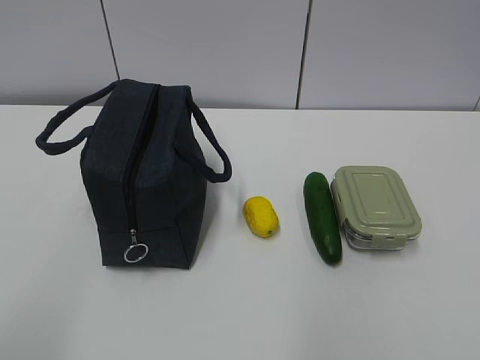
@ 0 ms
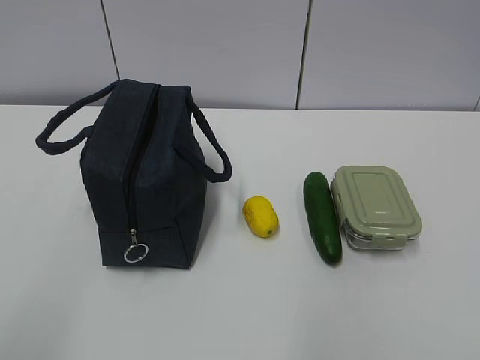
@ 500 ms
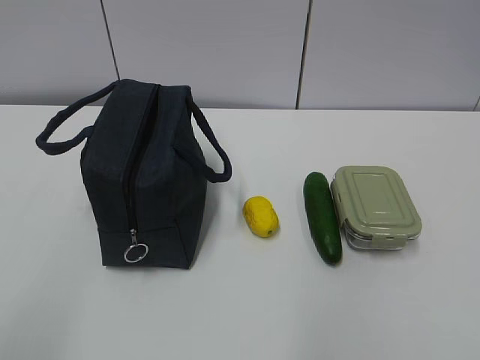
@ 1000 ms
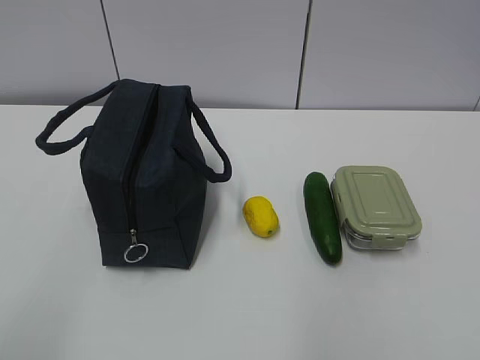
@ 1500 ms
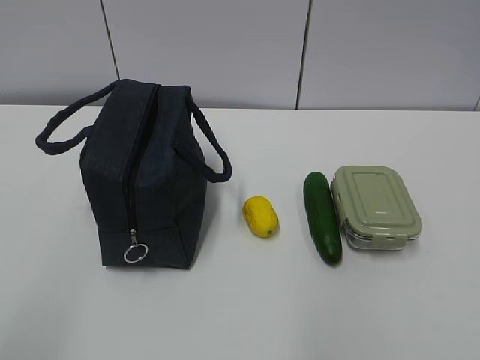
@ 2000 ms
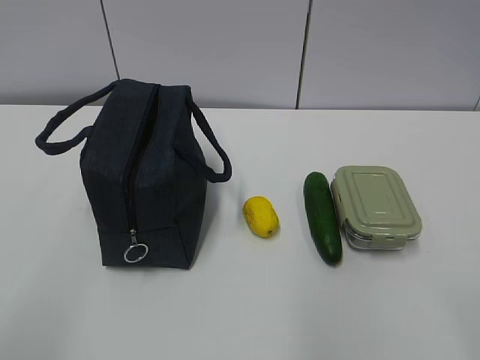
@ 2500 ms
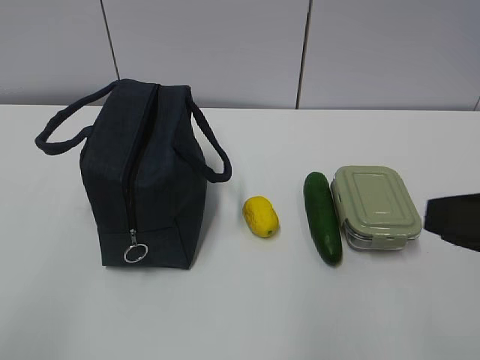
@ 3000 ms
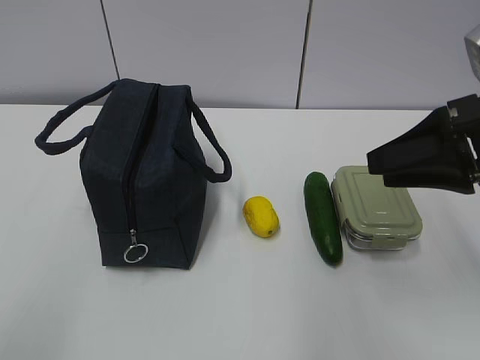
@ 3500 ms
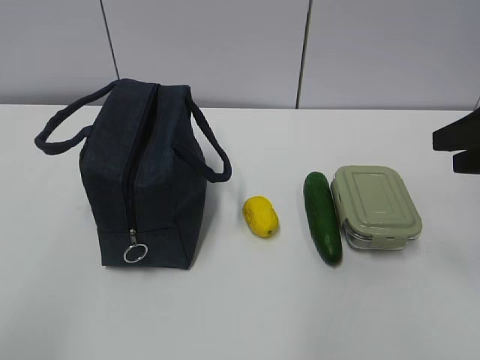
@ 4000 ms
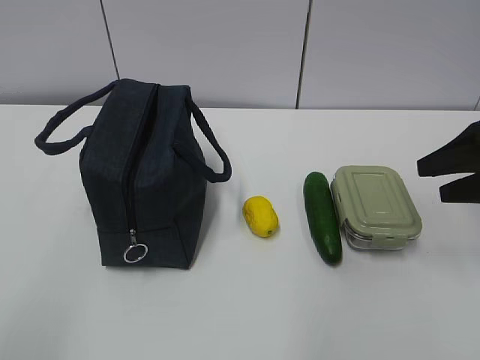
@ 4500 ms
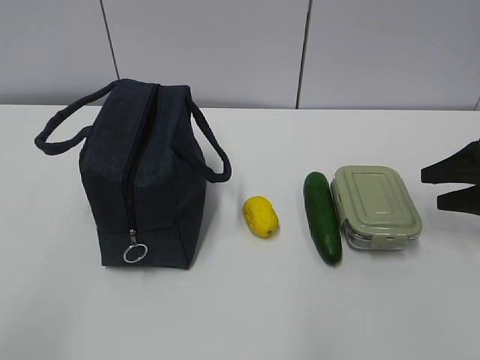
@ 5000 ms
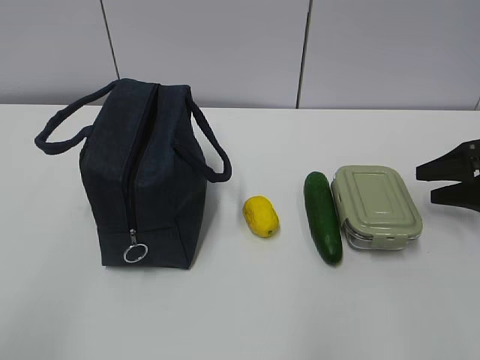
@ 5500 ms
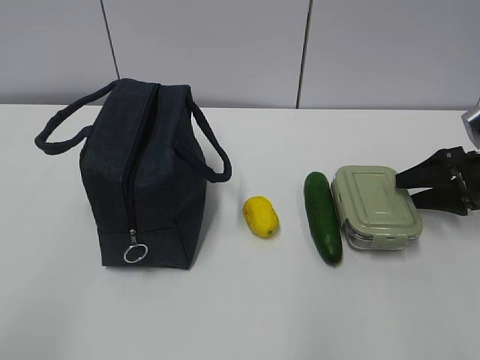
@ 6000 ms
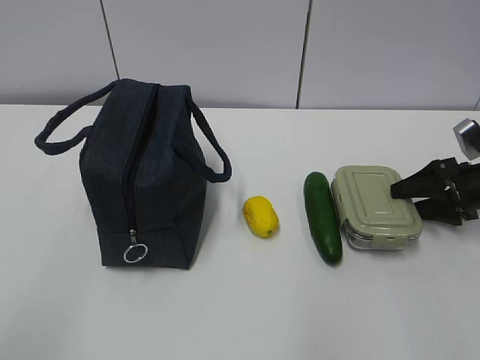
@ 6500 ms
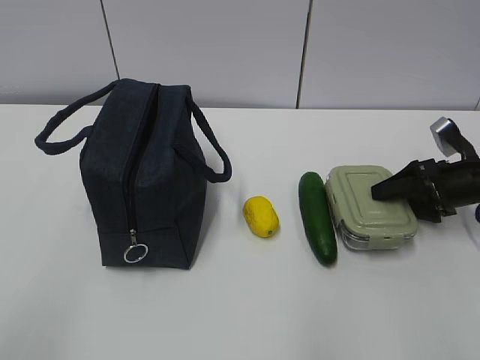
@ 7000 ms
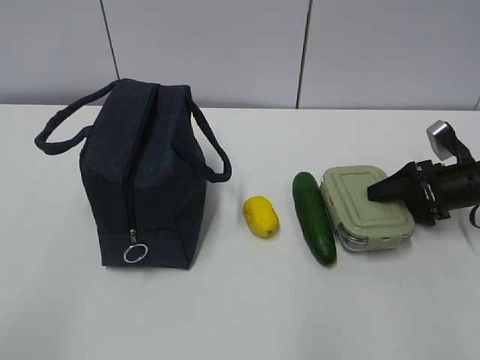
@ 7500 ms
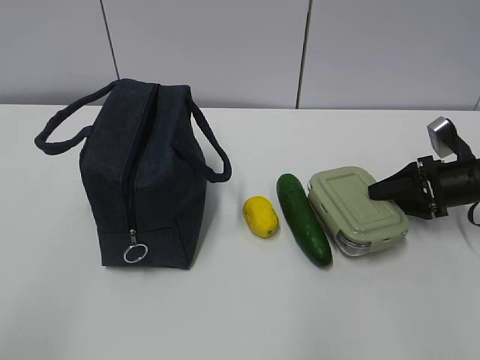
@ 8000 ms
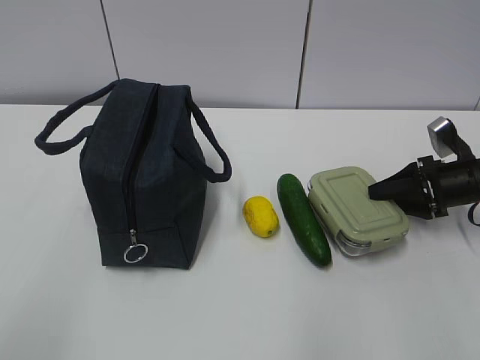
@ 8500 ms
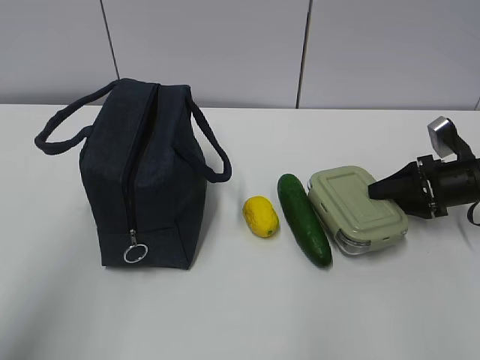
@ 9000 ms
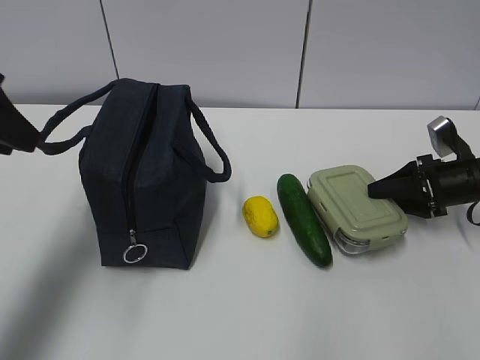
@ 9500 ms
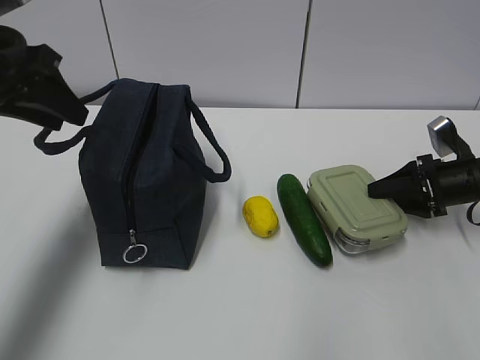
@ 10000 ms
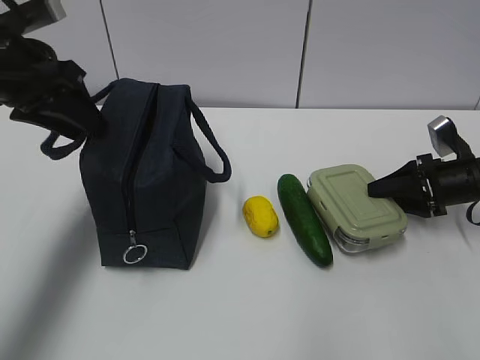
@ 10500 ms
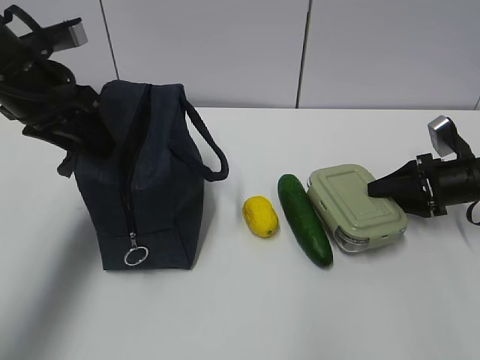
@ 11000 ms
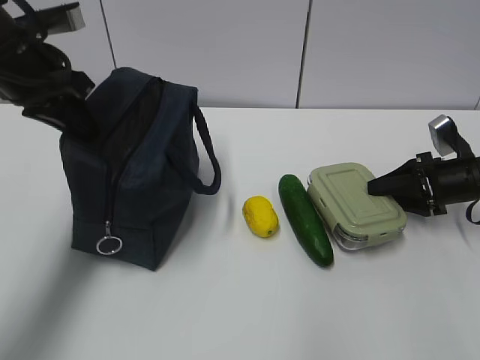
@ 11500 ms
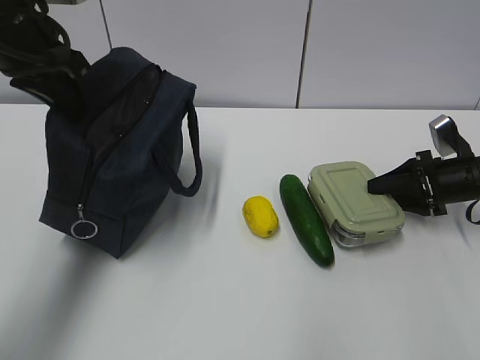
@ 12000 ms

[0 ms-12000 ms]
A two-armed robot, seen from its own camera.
Step, 0 ms to 10000 ms: Grab the lunch box with your right hand.
2000 ms to 4000 ms: The right gripper heads forward, covering approximately 30 cm.
4000 ms to 6000 ms: The right gripper travels downward, forward and to the right by approximately 20 cm.
6000 ms to 8000 ms: The grippers move only a little.
8000 ms to 10000 ms: The left gripper shifts approximately 35 cm forward.
10000 ms to 12000 ms: The left gripper closes up.

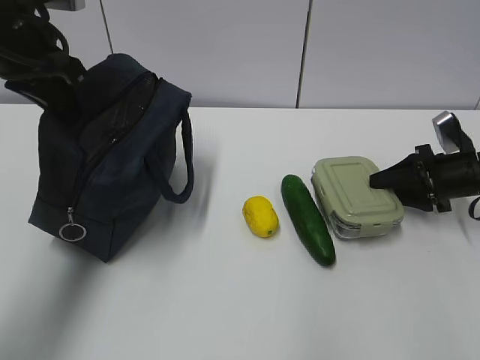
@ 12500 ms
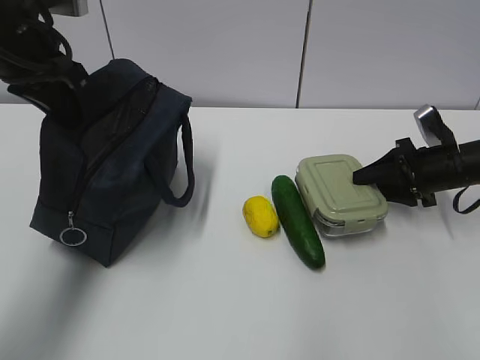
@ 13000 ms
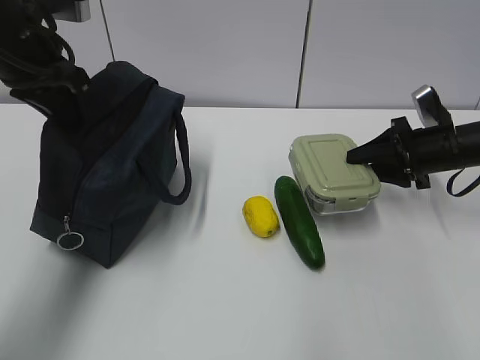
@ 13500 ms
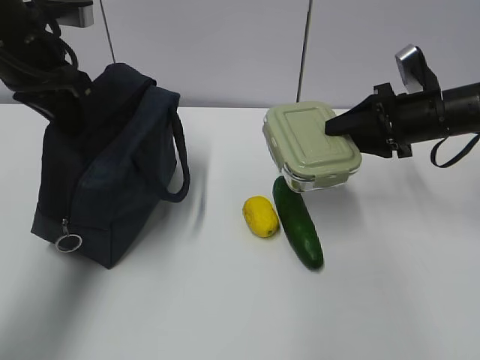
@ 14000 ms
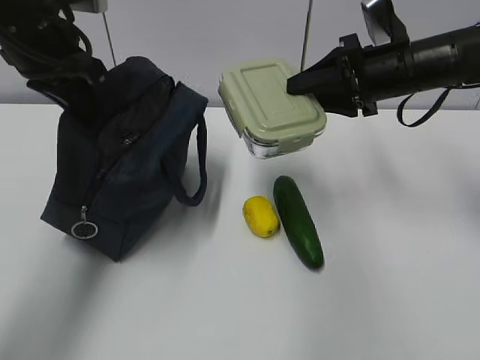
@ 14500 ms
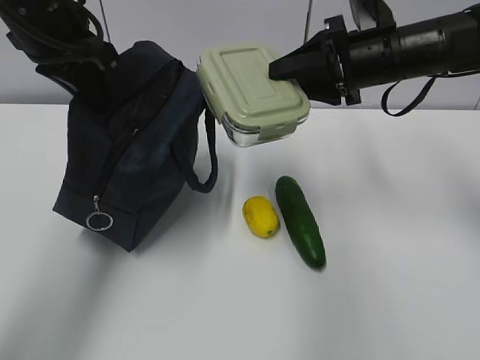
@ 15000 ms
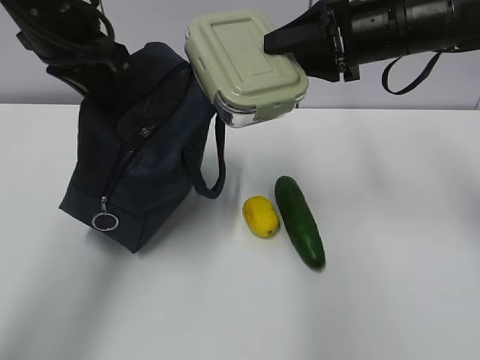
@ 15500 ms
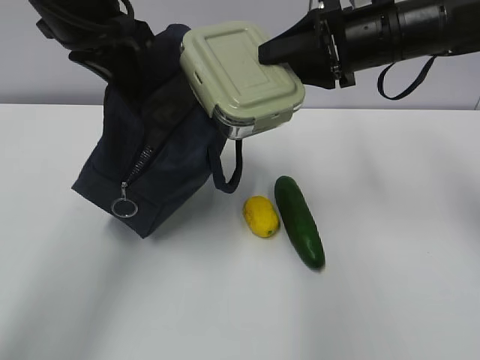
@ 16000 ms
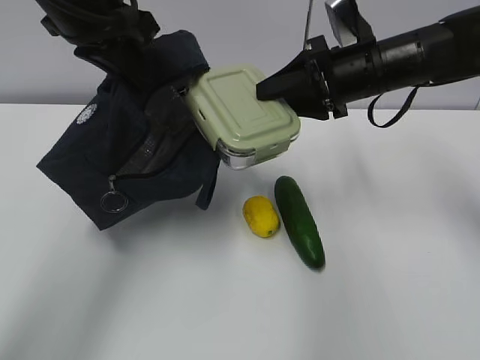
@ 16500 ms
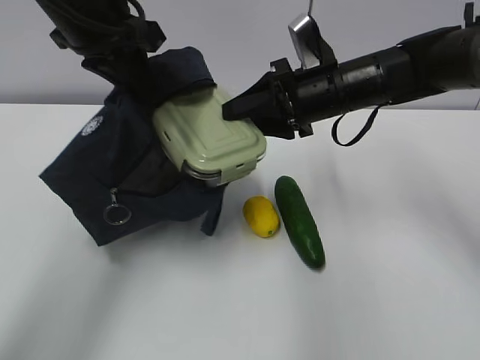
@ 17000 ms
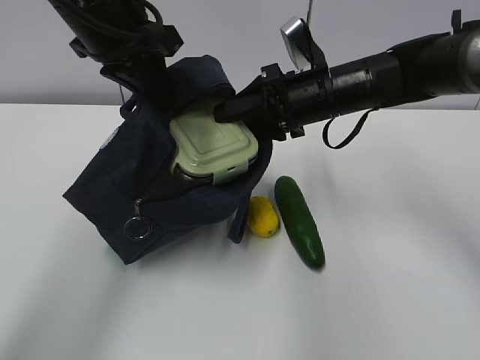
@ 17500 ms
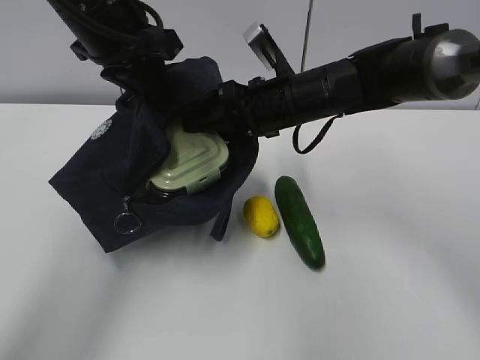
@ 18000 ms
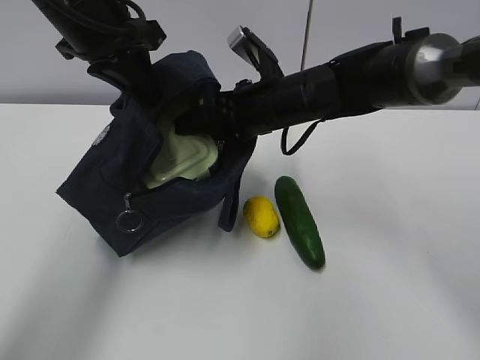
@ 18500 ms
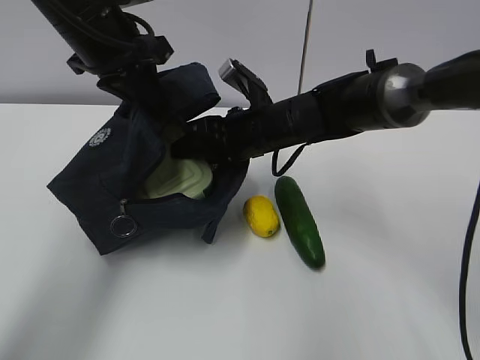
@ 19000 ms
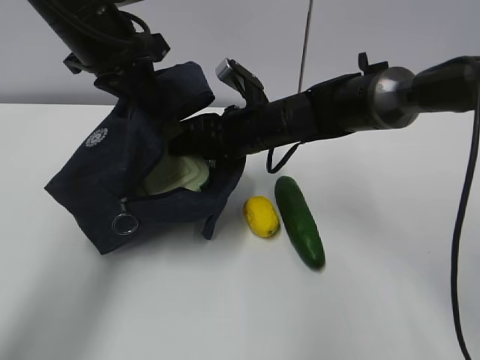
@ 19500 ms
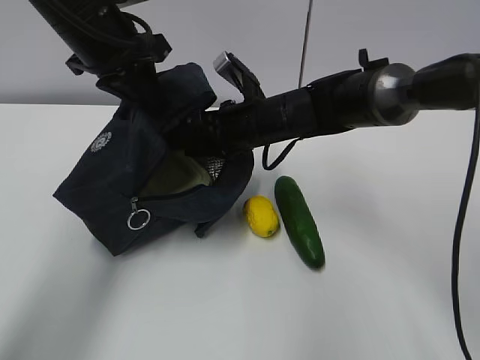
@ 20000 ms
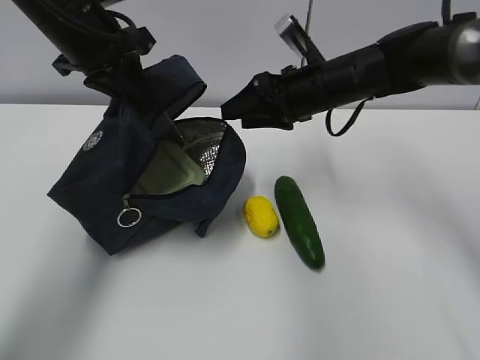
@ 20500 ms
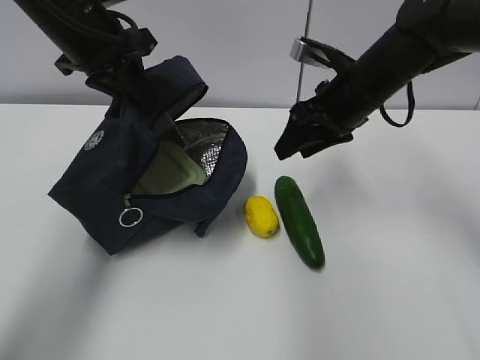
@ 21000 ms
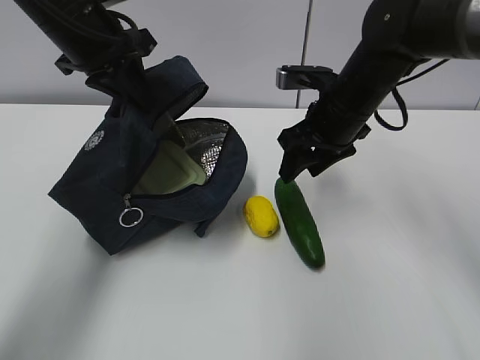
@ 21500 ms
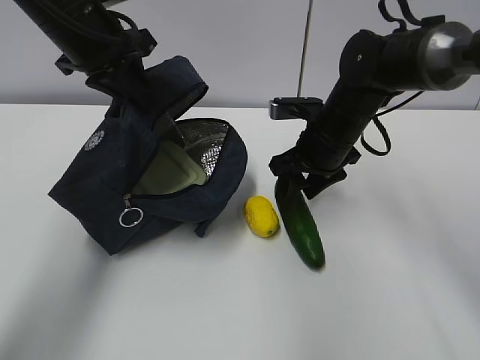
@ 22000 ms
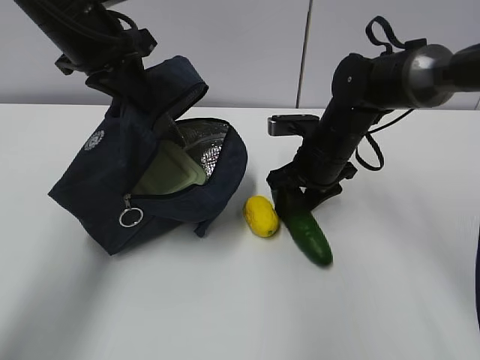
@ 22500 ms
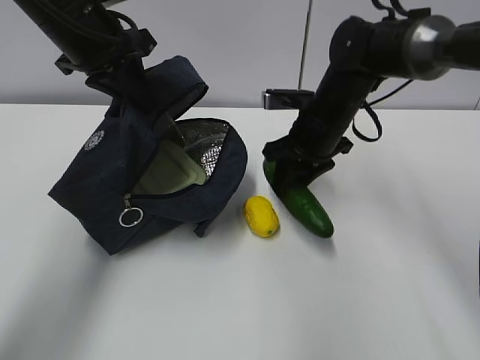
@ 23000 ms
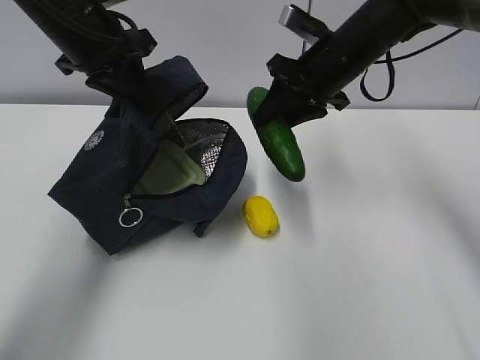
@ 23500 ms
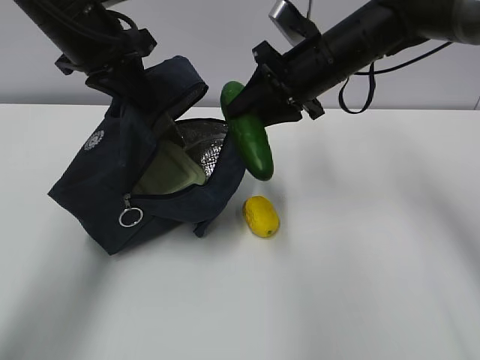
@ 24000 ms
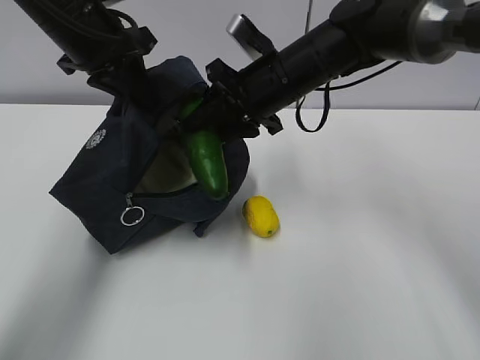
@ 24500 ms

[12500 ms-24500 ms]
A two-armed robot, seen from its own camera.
Step, 13500 ms to 16500 ms: Place it into the bag with your right hand.
Step, 17000 ms to 18500 ms: Grab the cucumber with your right hand.
Step, 19000 ms to 21500 ms: Place it into the bag with your right hand.
Step, 22000 ms to 24000 ms: Grab the lemon with your right hand.
12500 ms to 14500 ms: The right gripper goes about 20 cm upward and to the left.
14500 ms to 16500 ms: The left gripper shifts roughly 5 cm to the right.
16500 ms to 18500 ms: The right gripper shifts approximately 10 cm to the left.
18500 ms to 20500 ms: The right gripper goes about 5 cm to the right.
20500 ms to 22500 ms: The right gripper is displaced downward by some 5 cm.
22500 ms to 24500 ms: The right gripper goes roughly 10 cm upward and to the left.

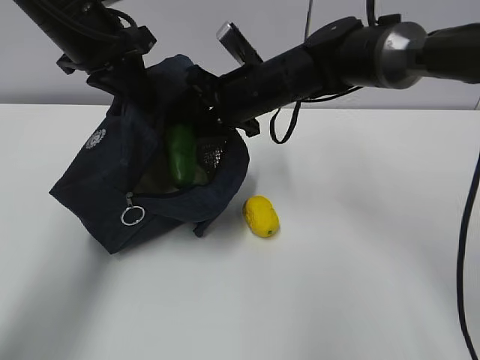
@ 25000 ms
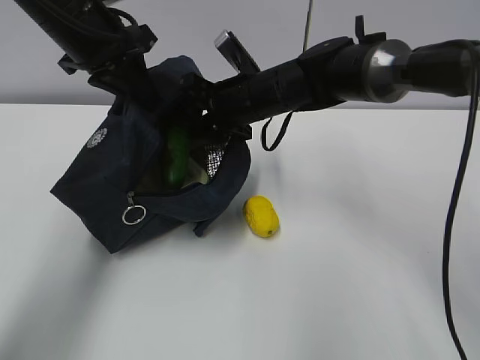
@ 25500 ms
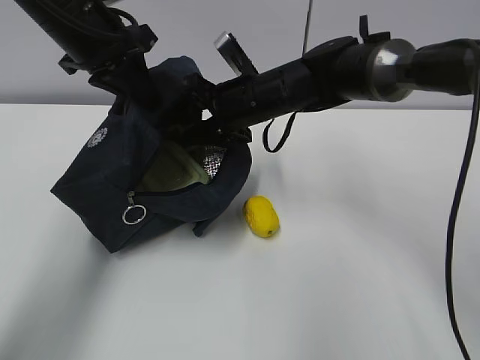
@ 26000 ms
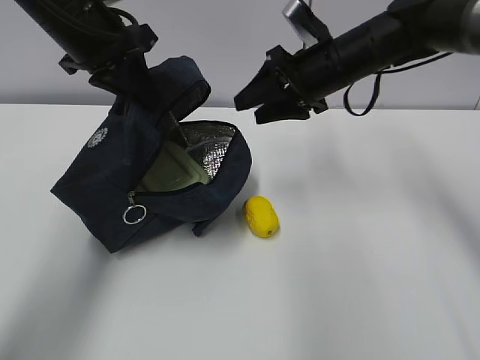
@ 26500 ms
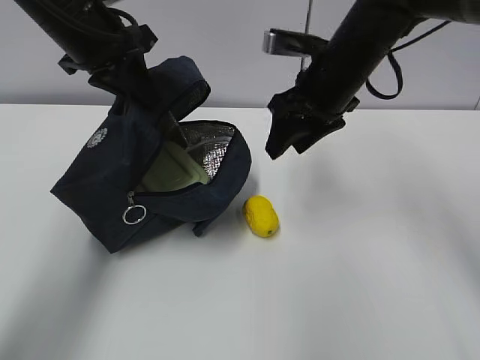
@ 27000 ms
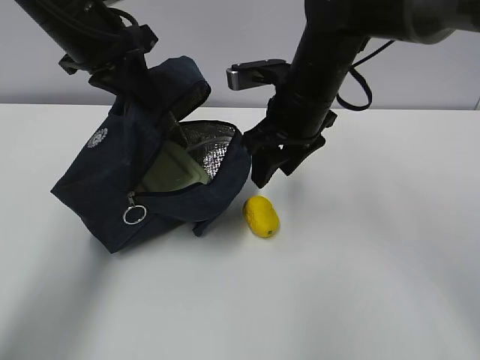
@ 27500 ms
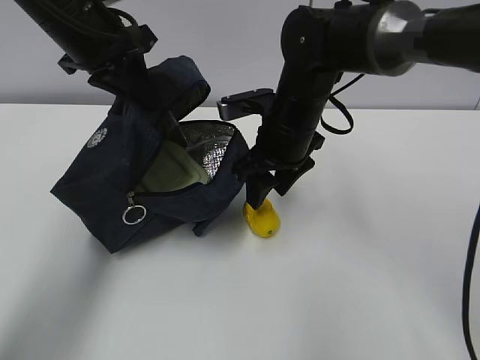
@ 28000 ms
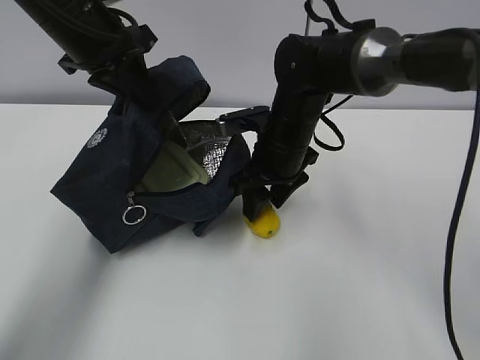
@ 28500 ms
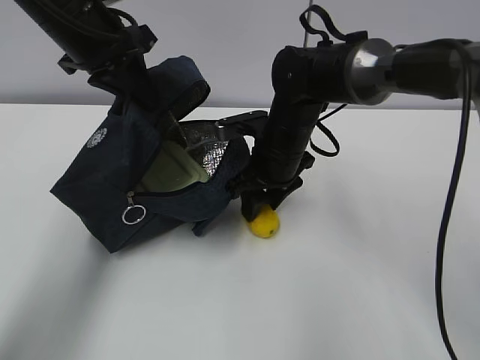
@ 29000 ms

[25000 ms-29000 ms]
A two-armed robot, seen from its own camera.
25000 ms to 27000 ms: The right gripper goes approximately 10 cm to the right.
27000 ms to 29000 ms: The right gripper is displaced downward and to the left by approximately 10 cm.
